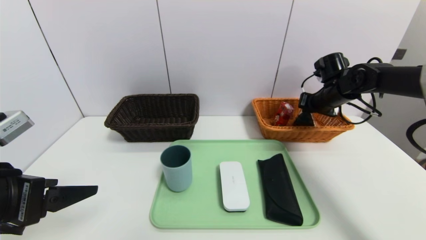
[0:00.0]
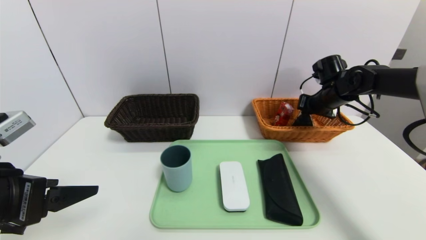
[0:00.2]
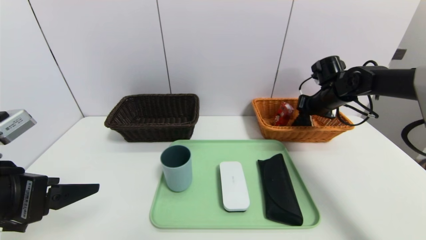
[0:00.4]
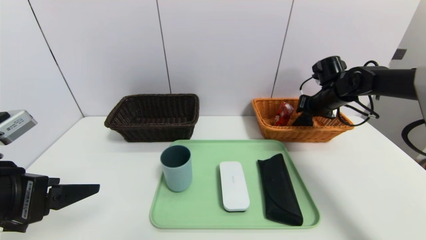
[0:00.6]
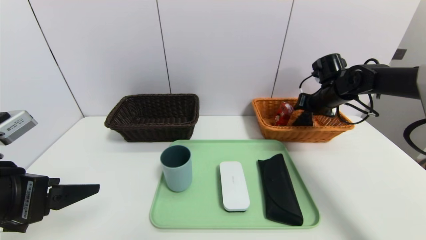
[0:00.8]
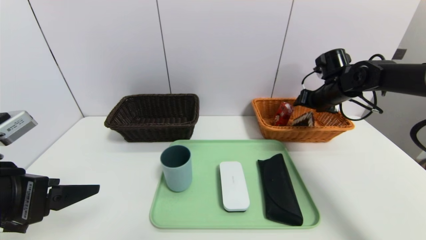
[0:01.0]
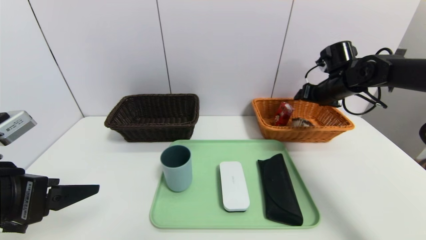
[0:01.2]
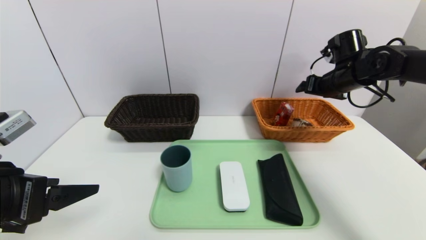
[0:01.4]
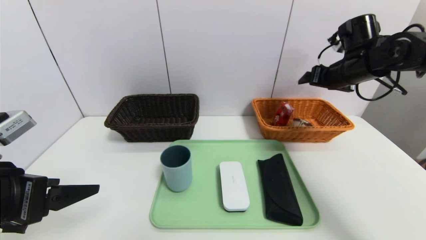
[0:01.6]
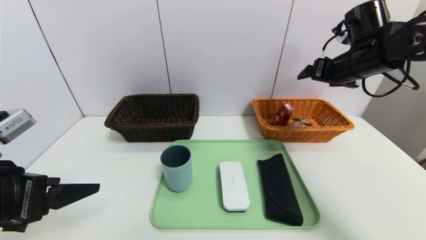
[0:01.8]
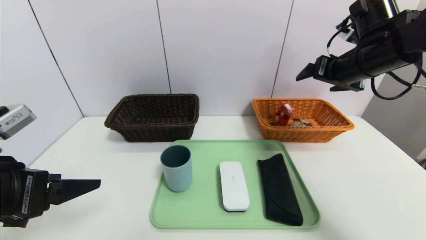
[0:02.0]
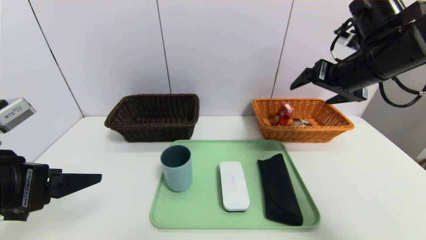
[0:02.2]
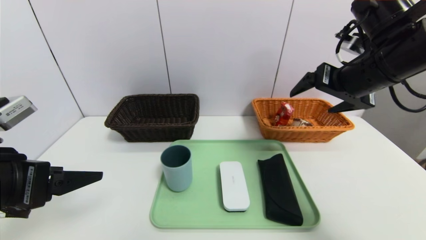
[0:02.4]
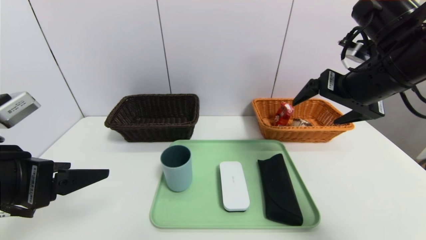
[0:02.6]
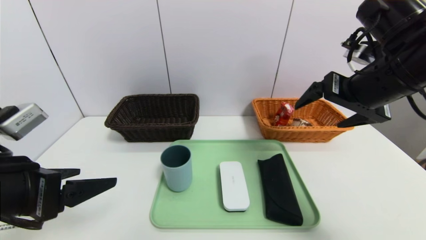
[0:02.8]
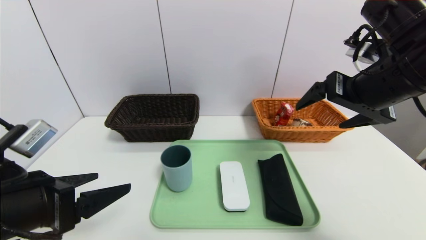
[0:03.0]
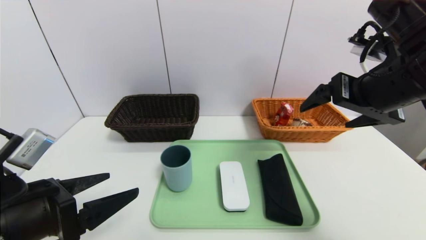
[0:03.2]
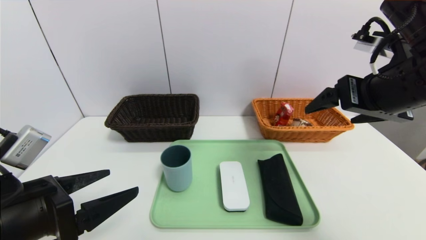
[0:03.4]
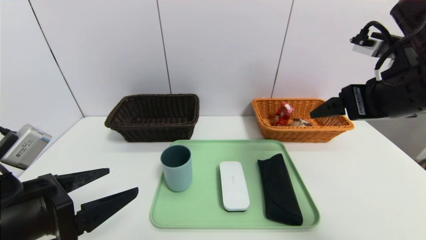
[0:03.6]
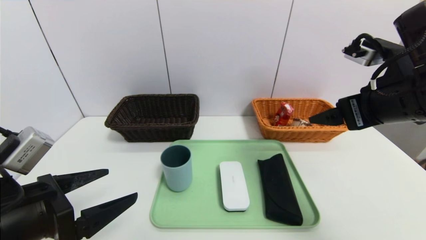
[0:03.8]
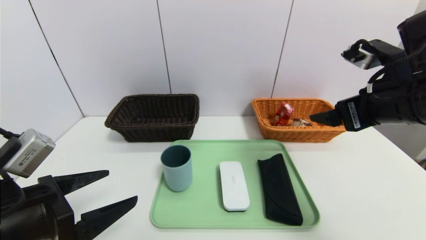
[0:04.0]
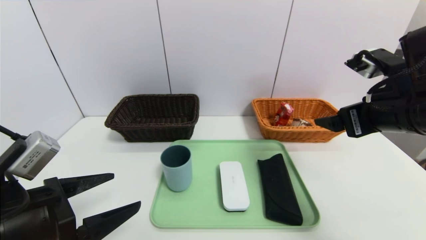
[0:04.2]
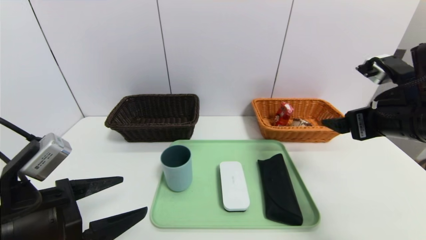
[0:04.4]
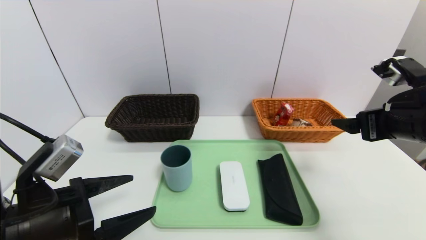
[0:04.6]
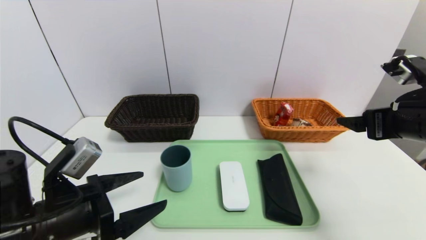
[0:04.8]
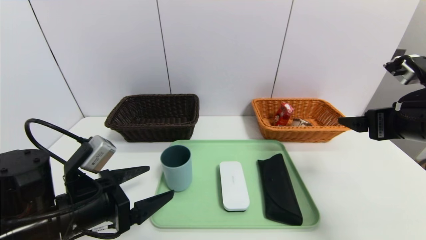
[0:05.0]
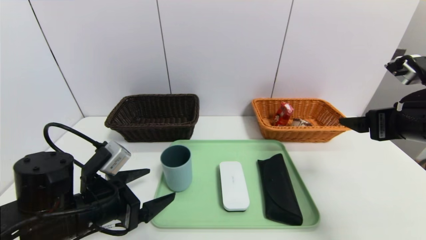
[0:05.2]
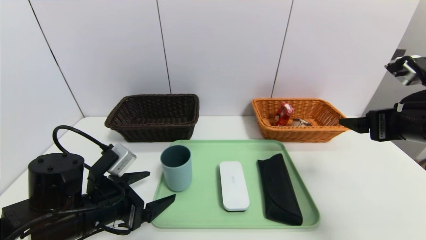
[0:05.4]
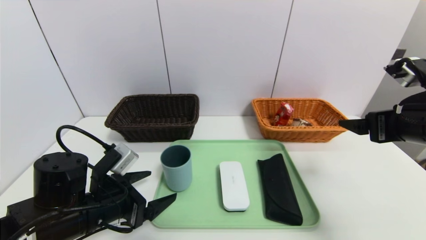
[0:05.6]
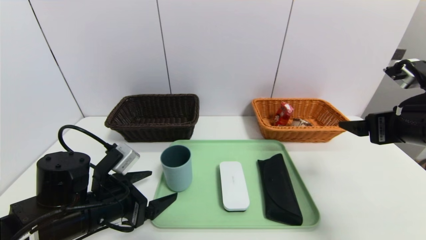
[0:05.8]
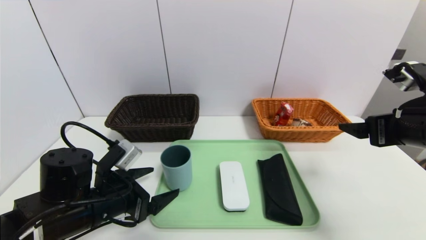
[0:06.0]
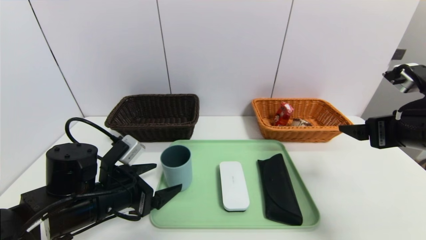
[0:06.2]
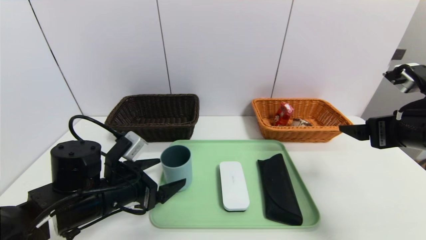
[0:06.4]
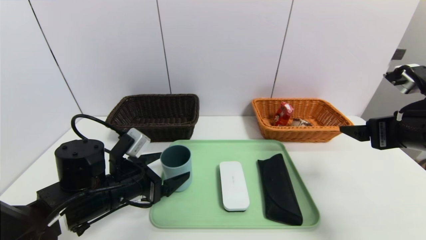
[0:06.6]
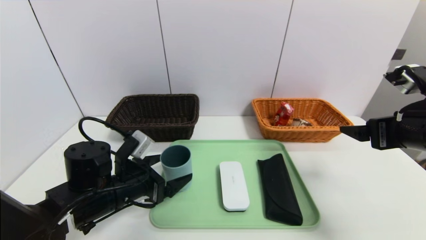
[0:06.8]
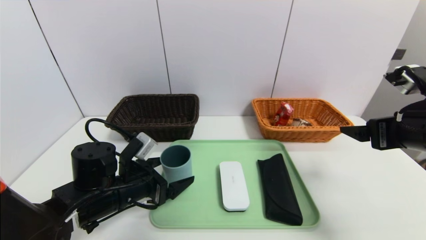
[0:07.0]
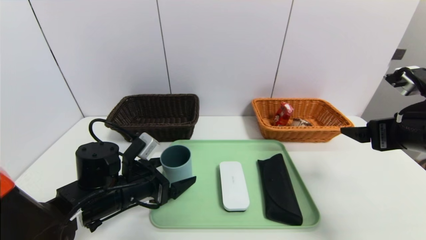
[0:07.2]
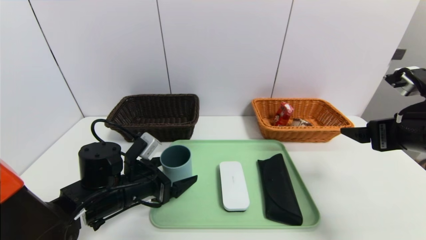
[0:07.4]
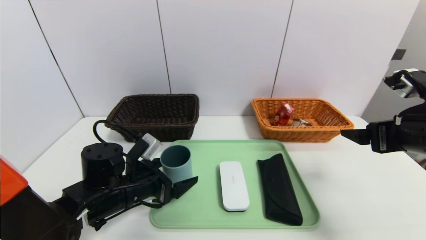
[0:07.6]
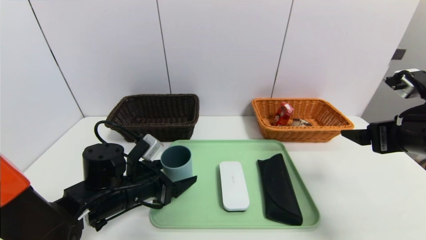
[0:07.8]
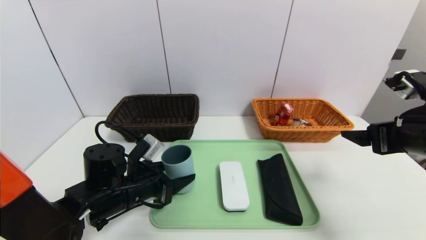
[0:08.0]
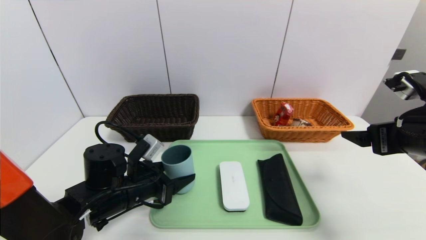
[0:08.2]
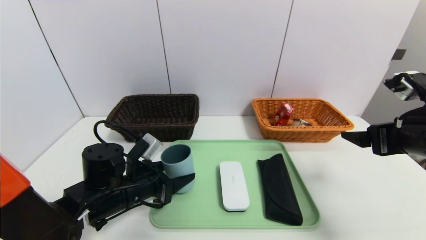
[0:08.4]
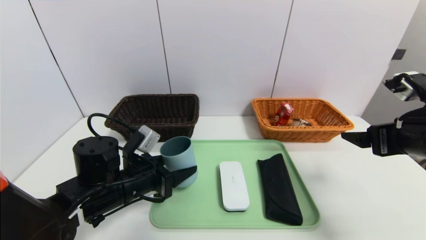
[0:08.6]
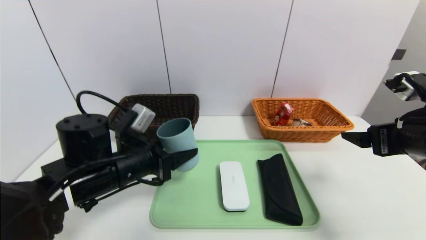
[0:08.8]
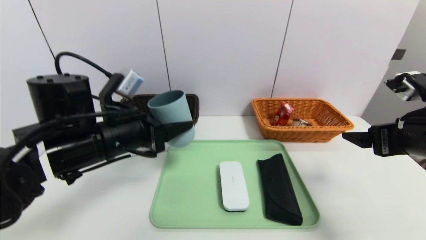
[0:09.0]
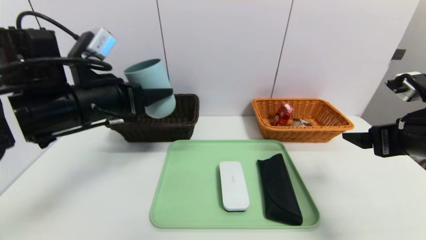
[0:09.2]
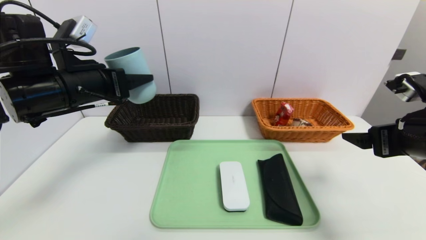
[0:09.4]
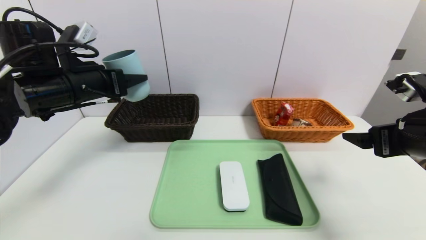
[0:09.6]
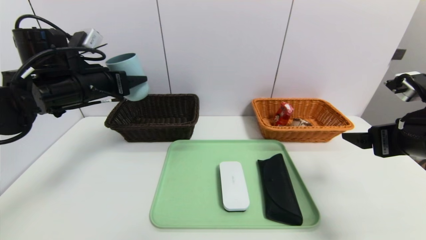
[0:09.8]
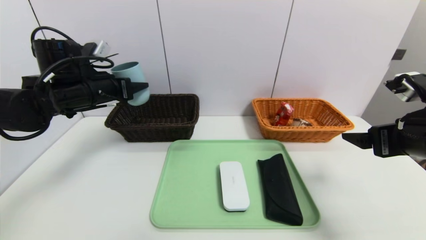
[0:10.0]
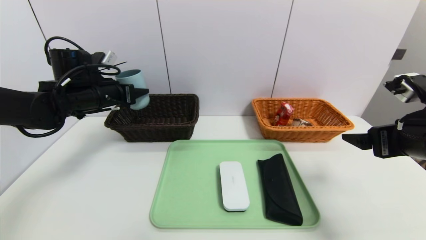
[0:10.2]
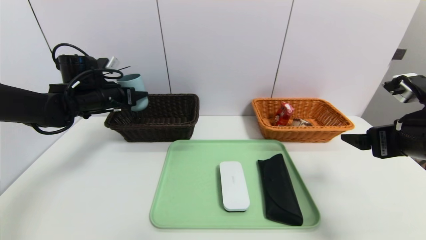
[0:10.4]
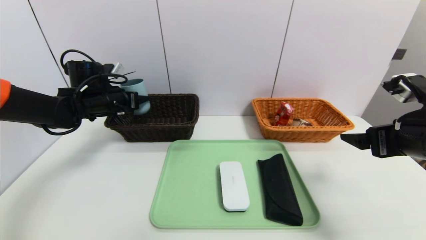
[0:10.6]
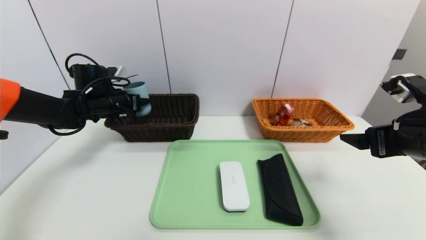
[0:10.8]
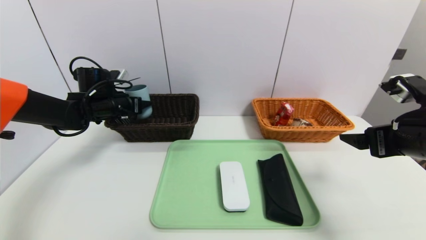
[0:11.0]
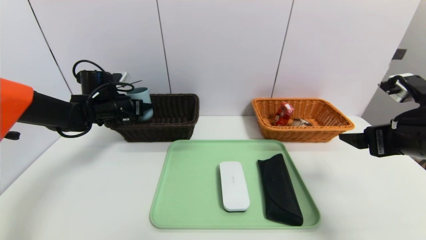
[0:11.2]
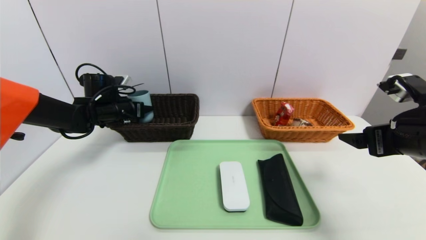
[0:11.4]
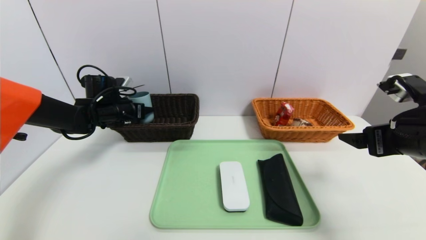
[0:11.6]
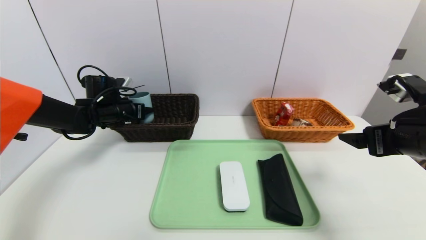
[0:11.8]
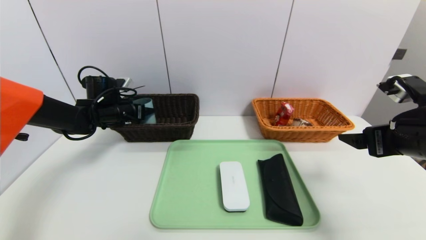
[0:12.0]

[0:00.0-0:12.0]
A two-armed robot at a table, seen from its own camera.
Task of the whole recording: place the food in the right basket with the right gripper, and place the non food items in the left basket with the left gripper.
0:00.0 to 0:01.6: The right gripper shifts approximately 10 cm upward and backward, and opens up.
0:01.6 to 0:03.0: The right gripper moves backward, about 15 cm.
0:03.0 to 0:04.4: The right gripper shifts roughly 5 cm downward.
0:04.4 to 0:06.0: The left gripper travels forward and downward by some 10 cm.
0:06.0 to 0:07.6: The left gripper ends up about 5 cm from where it was.
0:07.6 to 0:09.0: The left gripper goes approximately 15 cm upward, and closes up.
0:09.0 to 0:10.4: The left gripper travels forward and to the left by roughly 20 cm.
0:10.4 to 0:12.0: The left gripper goes approximately 5 cm downward.

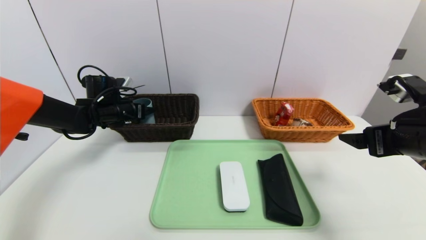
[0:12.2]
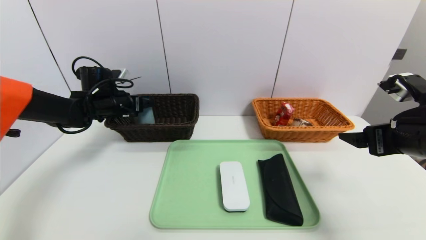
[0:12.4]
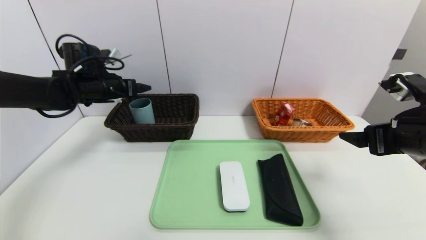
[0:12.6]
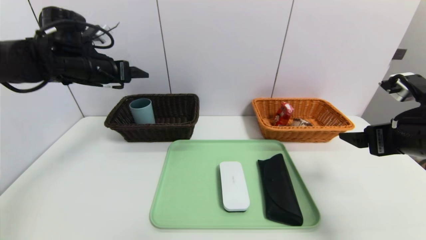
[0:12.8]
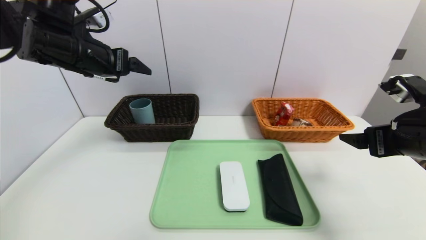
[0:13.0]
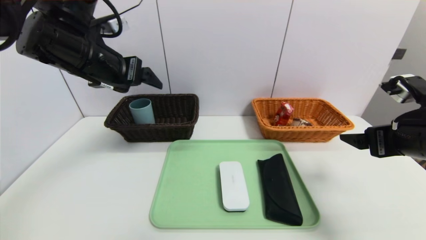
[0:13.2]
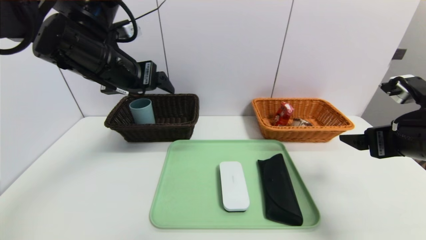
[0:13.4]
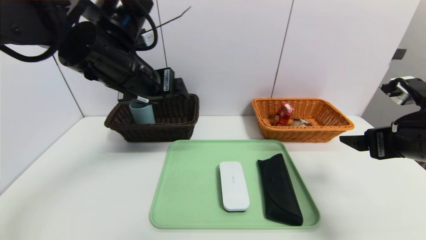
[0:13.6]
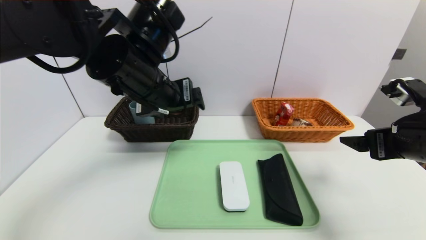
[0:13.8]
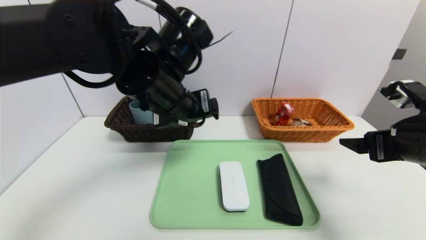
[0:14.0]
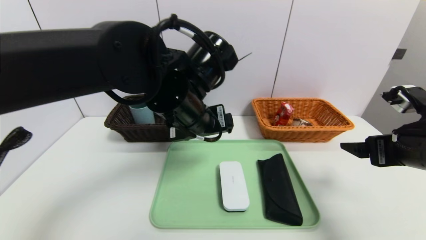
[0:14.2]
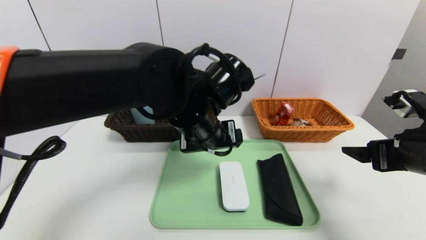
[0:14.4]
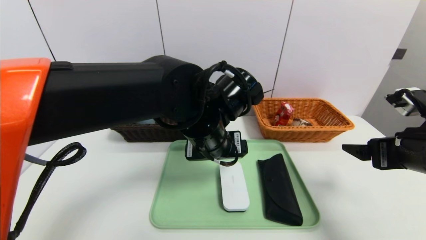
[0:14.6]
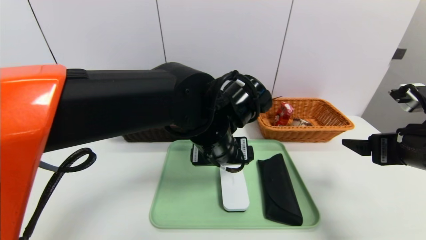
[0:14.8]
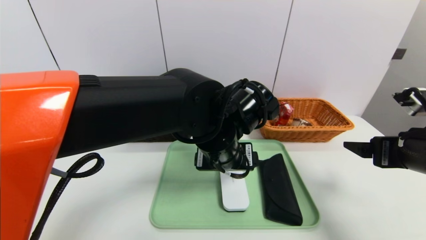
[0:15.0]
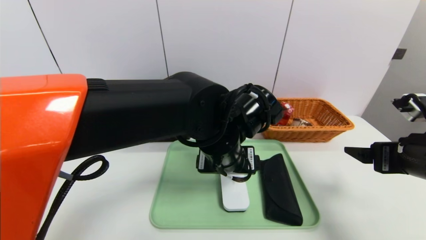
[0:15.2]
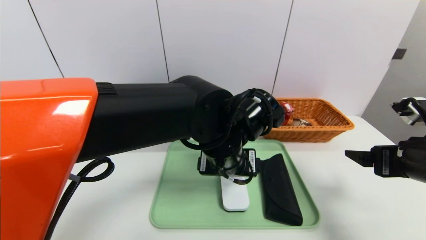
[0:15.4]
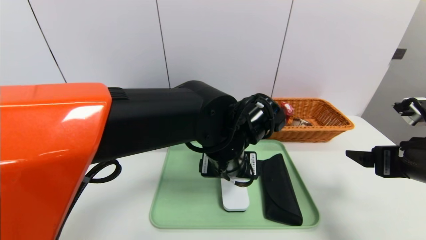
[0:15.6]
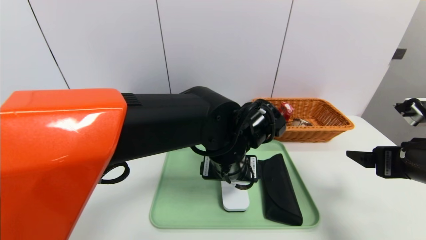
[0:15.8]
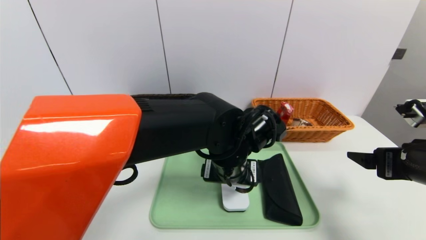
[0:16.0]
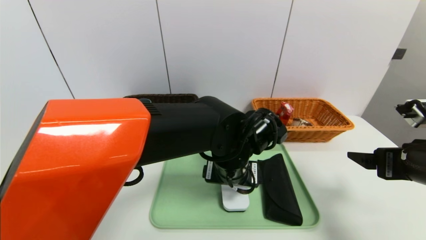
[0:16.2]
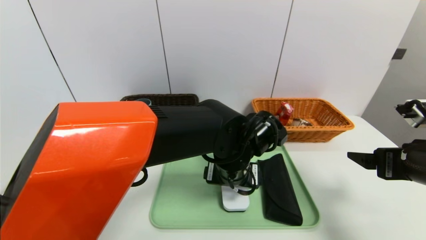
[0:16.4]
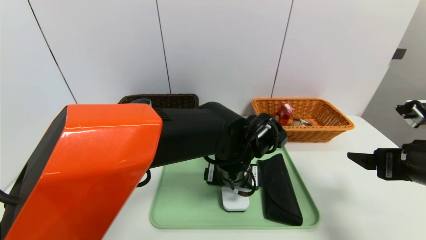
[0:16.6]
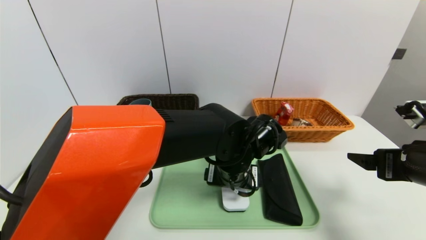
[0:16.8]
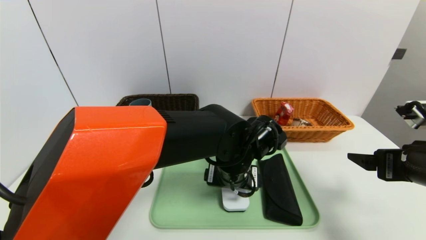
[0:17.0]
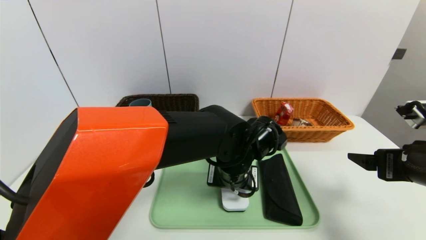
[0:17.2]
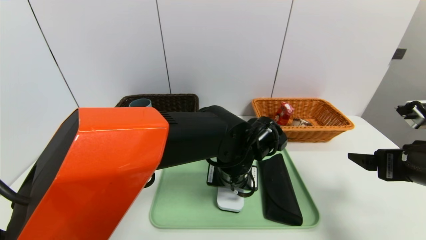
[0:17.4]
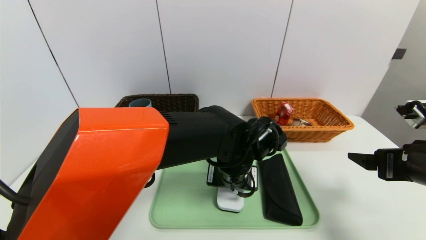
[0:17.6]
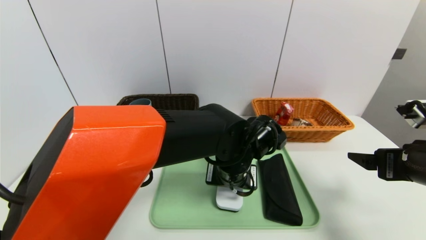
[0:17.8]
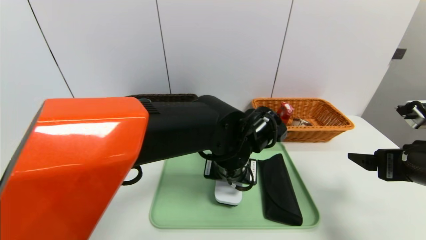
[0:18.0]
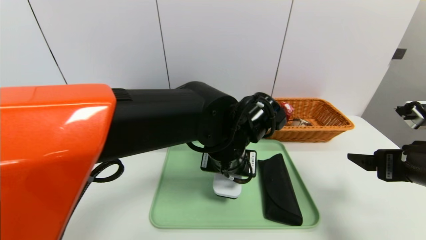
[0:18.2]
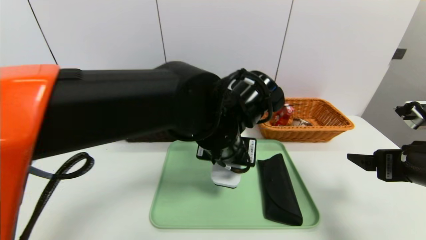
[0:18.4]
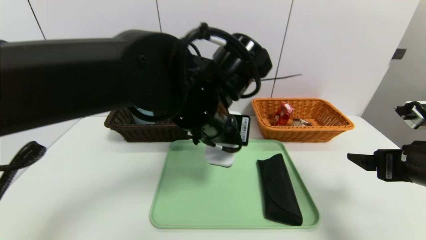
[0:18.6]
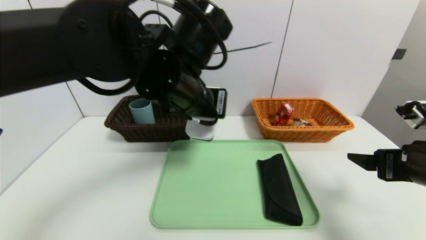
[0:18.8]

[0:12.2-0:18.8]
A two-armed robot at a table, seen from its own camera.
Task of the whole recording: place the food in the right basket with the right gripper, and place the non food items in the left basket with the left gripper.
0:12.2 to 0:13.8: The left gripper shifts some 30 cm to the right, backward and upward.
0:13.8 to 0:15.4: The left gripper moves to the right and downward, some 15 cm.
0:15.4 to 0:17.2: The left gripper goes some 5 cm downward, and closes its fingers.
0:17.2 to 0:18.8: The left gripper heads upward and to the left, covering approximately 20 cm.
